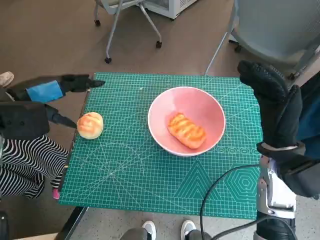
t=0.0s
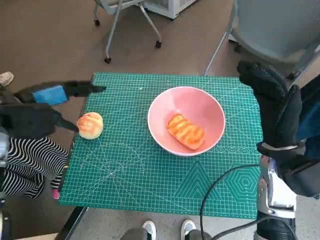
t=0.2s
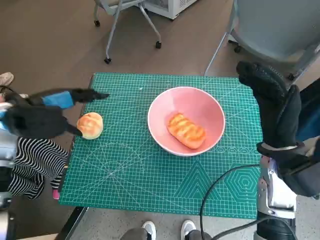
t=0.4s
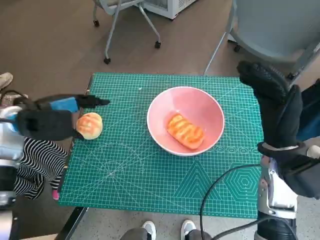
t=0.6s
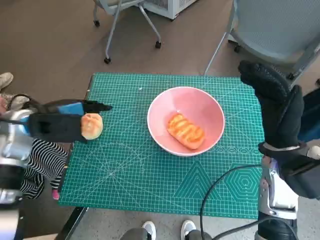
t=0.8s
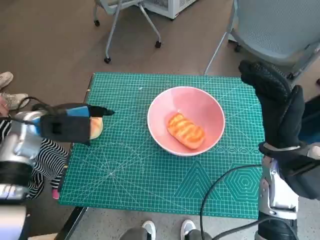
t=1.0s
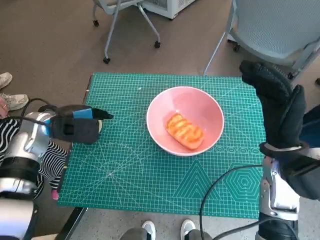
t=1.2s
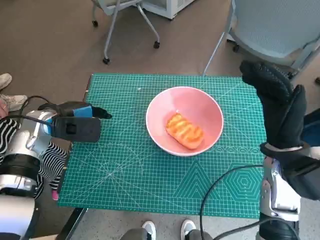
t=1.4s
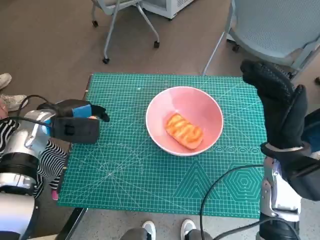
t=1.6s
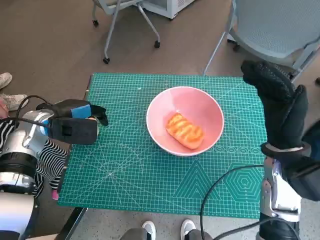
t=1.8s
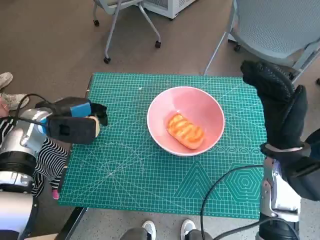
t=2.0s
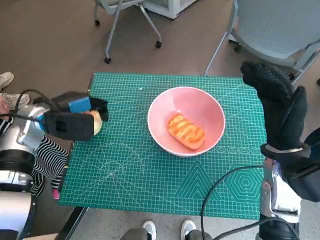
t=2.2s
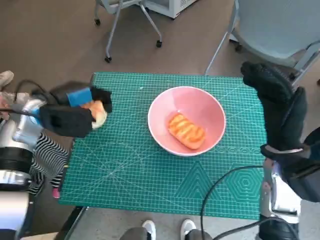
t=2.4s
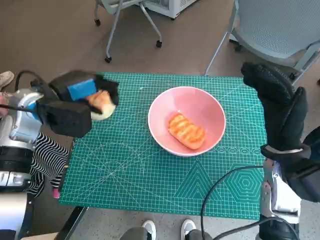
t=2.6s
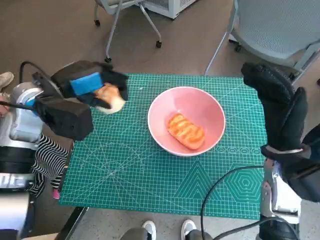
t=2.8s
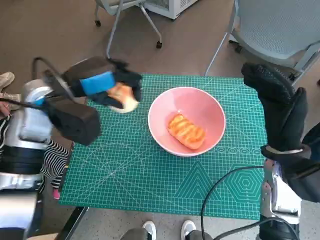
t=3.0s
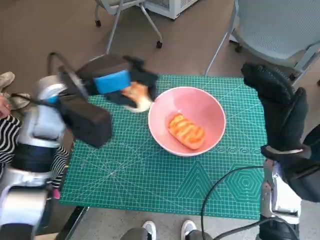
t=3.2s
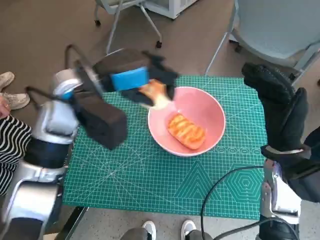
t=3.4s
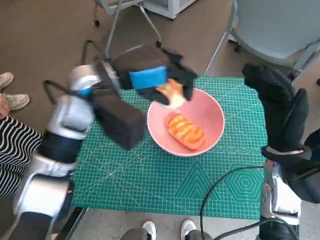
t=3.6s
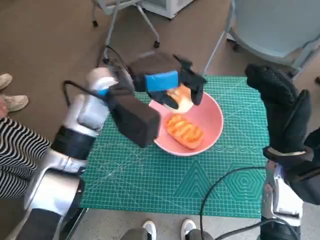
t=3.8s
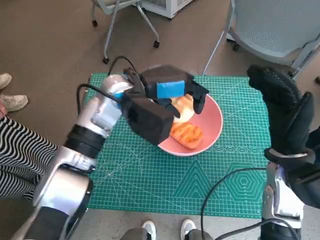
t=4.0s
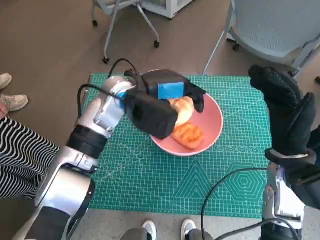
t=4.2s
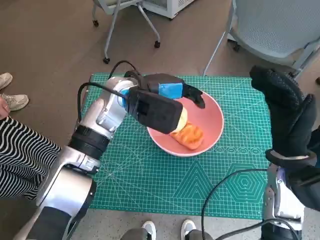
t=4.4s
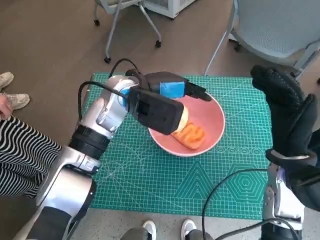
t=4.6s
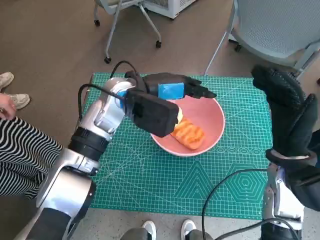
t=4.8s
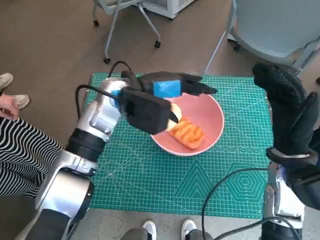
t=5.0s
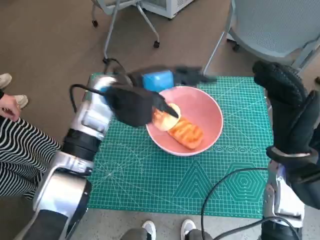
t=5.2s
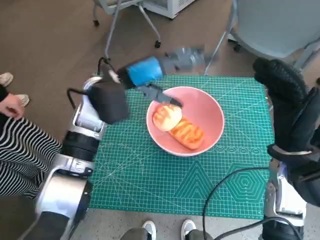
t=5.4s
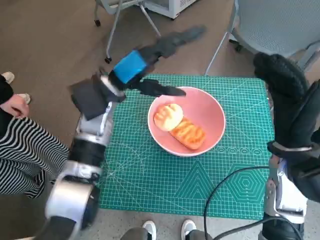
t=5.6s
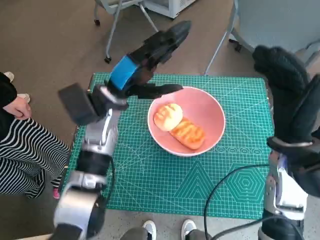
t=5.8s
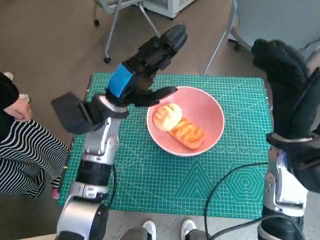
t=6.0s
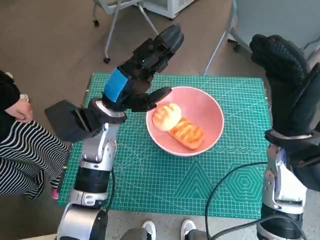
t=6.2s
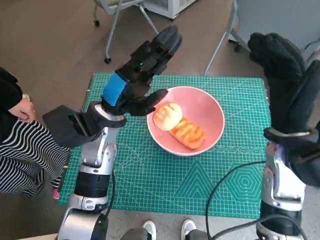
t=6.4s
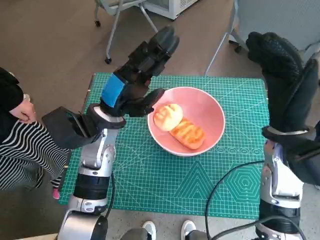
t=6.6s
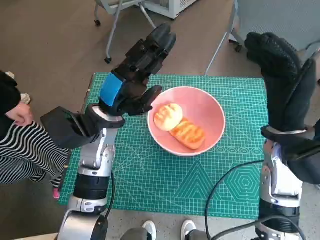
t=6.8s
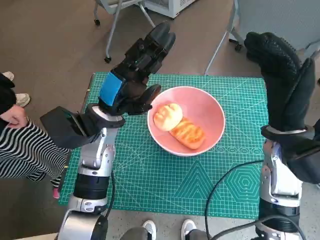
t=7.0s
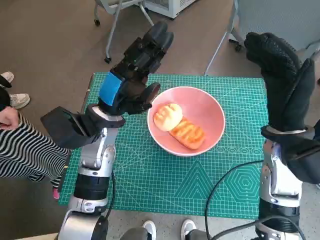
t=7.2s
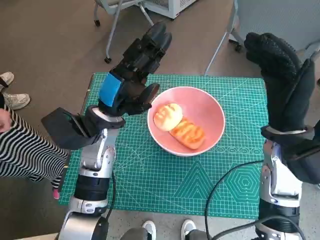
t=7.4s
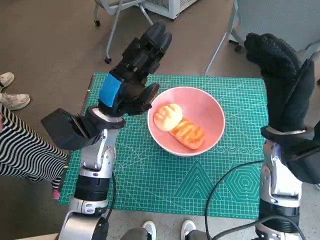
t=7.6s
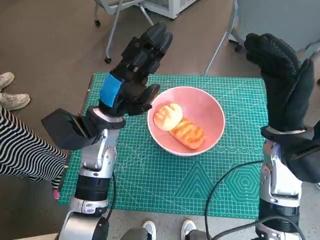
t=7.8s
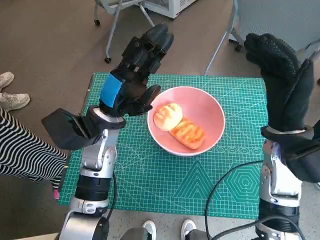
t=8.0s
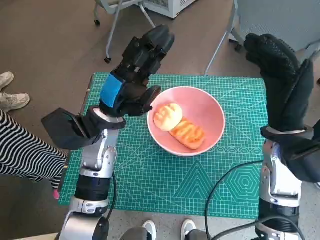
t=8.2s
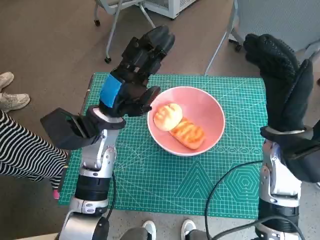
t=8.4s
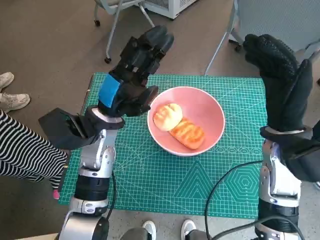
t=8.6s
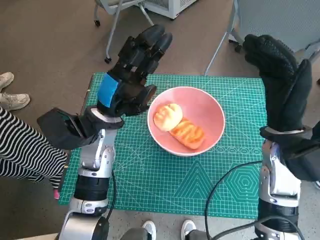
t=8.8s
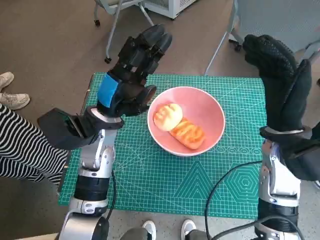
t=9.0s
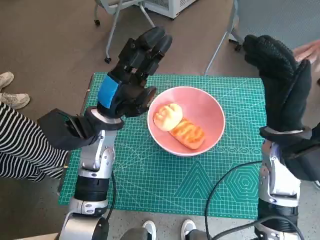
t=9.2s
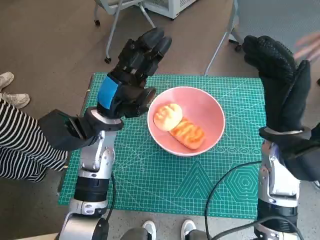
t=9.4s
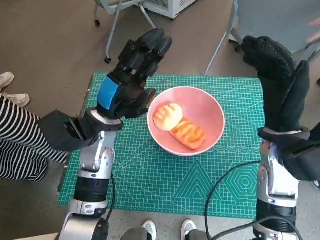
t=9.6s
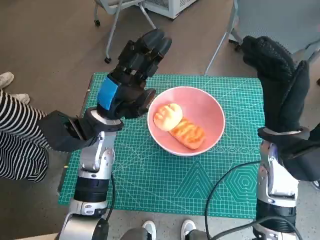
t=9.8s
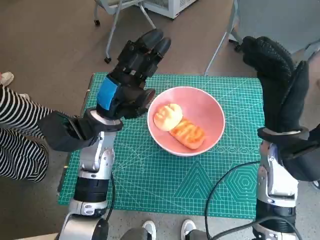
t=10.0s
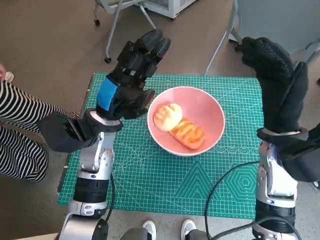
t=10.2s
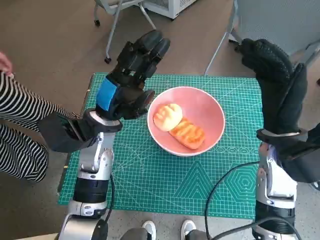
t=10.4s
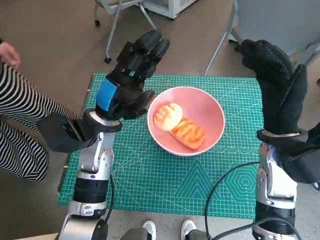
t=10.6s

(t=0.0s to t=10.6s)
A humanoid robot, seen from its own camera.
Task of the whole recording: Push the bowl into the center of the table and put the bread into the bowl.
Step, t=1.8s - t=5.0s: Place the round bread in pink bowl with left hand.
t=0.0s - t=1.6s: The left hand goes about 10 cm downward.
t=1.6s - t=3.0s: The left hand travels upward and to the right by some 10 cm.
t=3.0s - t=4.6s: The left hand moves to the right, about 10 cm.
t=4.6s - t=6.0s: The left hand ends up approximately 5 cm from where it was.
t=7.6s - t=10.6s: Both hands stay about where they are.

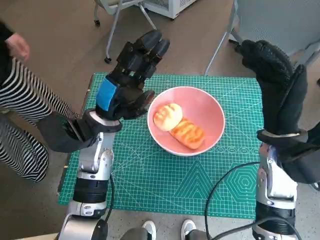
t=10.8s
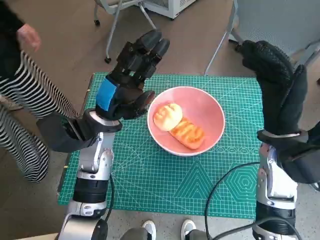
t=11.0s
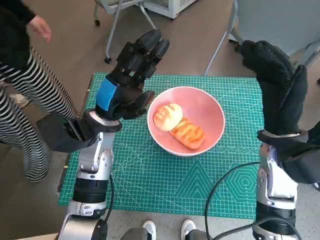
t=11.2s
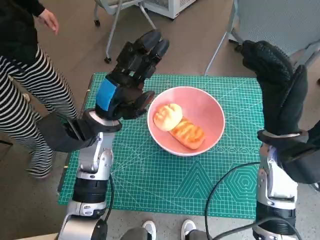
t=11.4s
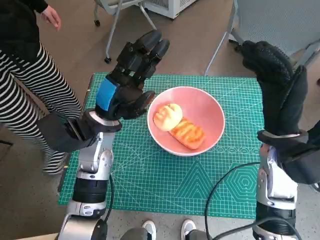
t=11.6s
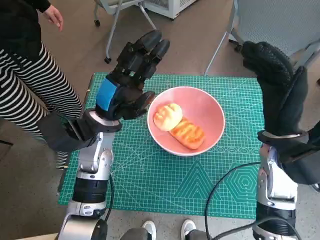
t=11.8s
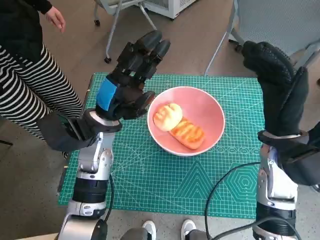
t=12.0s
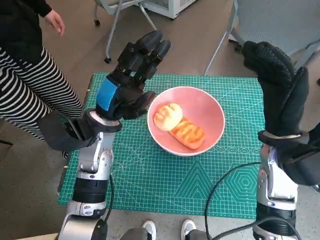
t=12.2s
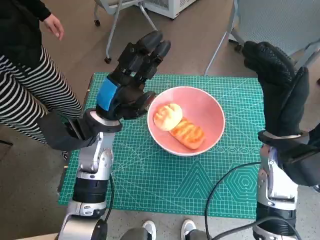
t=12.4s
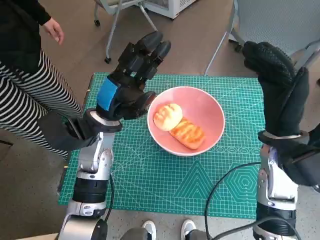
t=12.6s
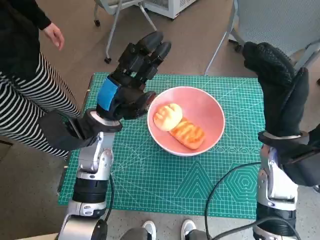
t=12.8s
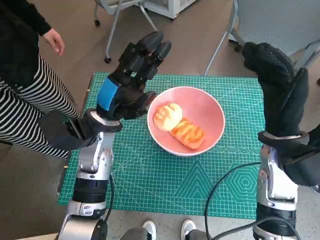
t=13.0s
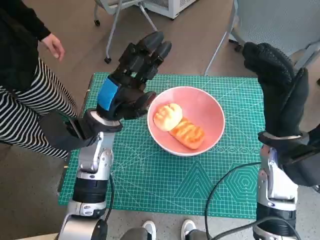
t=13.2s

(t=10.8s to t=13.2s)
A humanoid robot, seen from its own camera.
Task of the whole recording: Push the bowl into the center of the table and put the bread into the bowl.
t=10.8s - t=13.2s: The two hands keep their place.

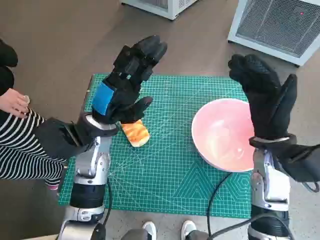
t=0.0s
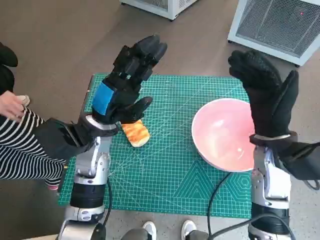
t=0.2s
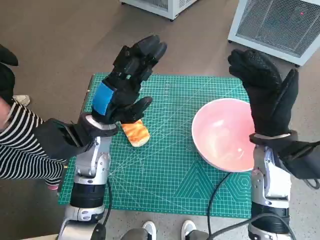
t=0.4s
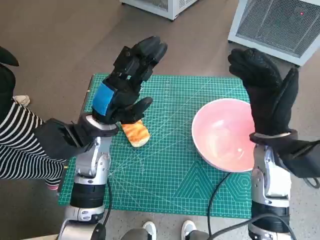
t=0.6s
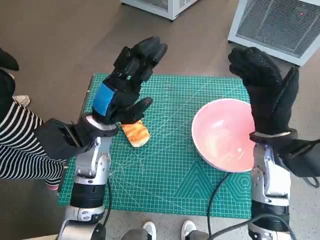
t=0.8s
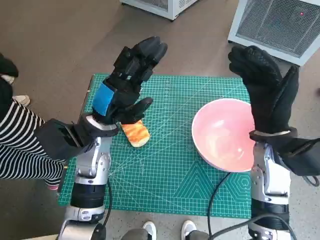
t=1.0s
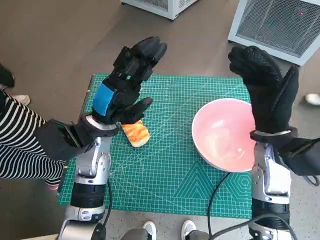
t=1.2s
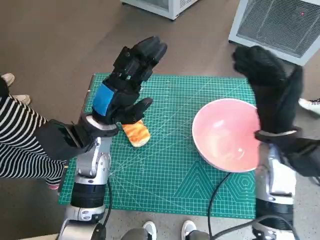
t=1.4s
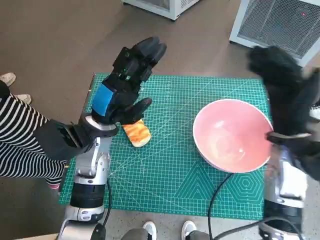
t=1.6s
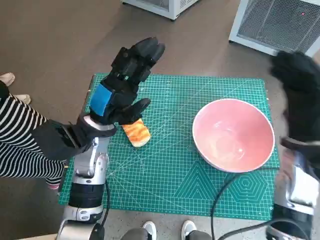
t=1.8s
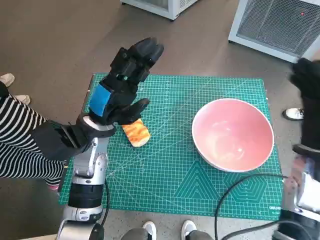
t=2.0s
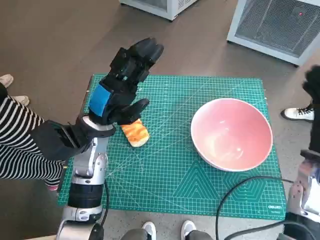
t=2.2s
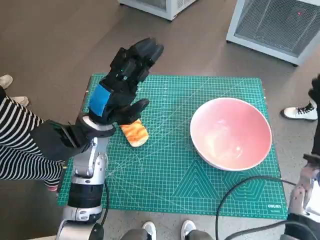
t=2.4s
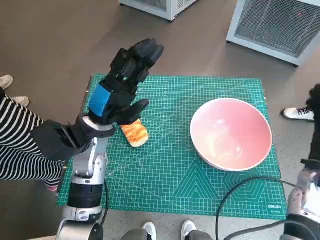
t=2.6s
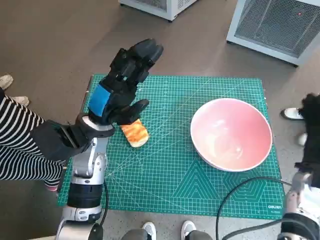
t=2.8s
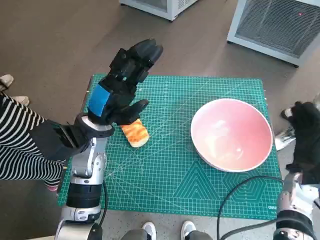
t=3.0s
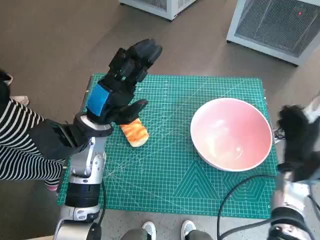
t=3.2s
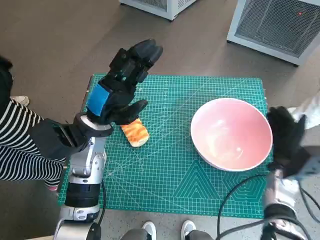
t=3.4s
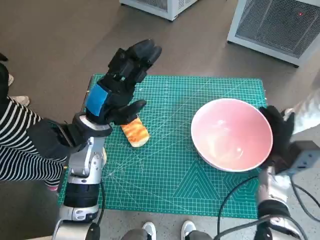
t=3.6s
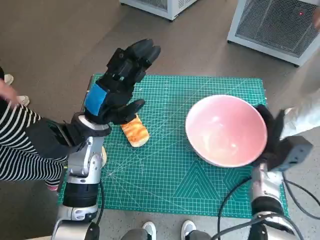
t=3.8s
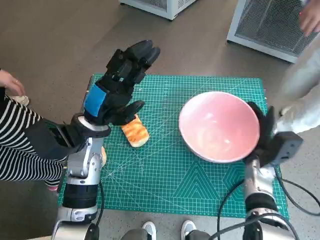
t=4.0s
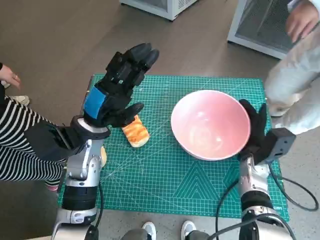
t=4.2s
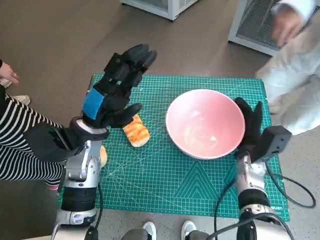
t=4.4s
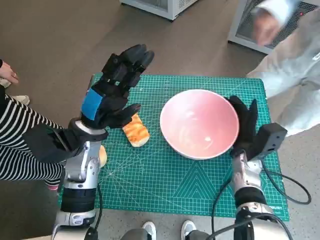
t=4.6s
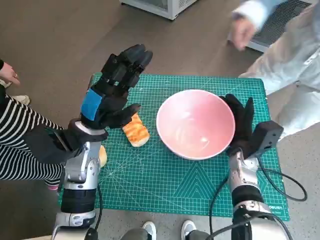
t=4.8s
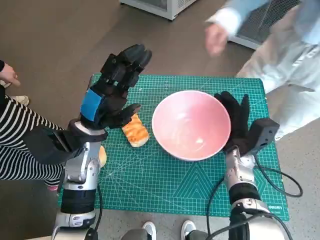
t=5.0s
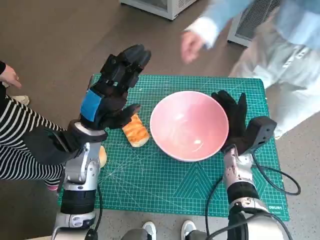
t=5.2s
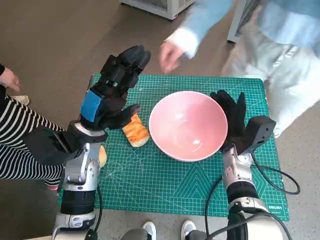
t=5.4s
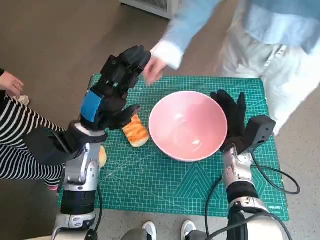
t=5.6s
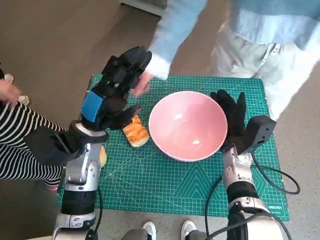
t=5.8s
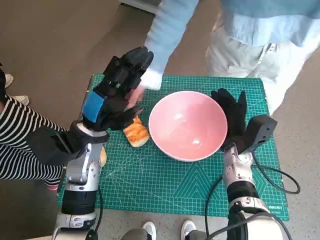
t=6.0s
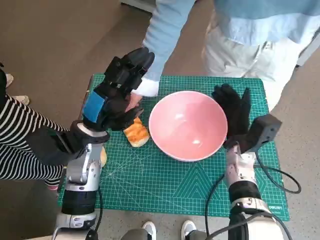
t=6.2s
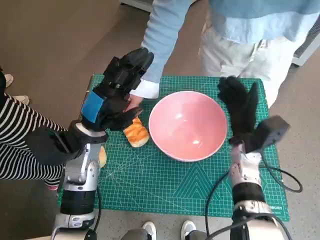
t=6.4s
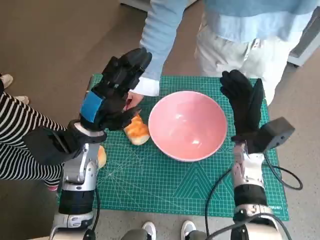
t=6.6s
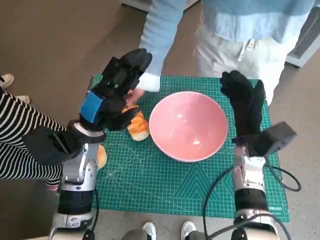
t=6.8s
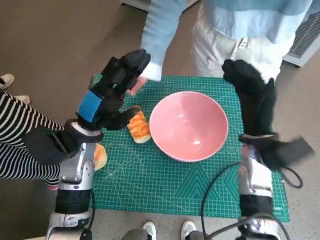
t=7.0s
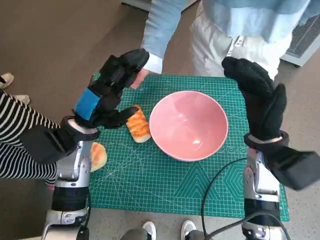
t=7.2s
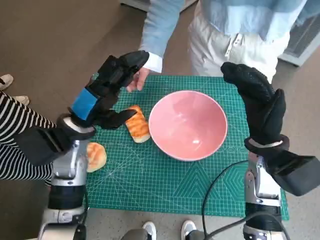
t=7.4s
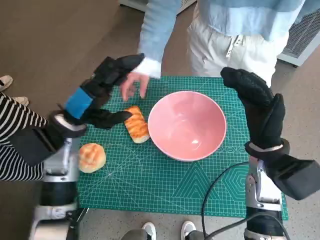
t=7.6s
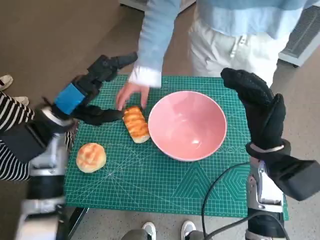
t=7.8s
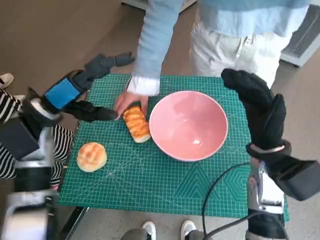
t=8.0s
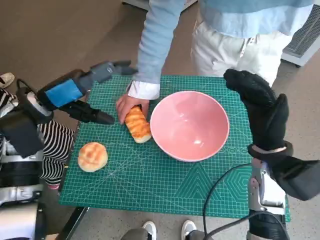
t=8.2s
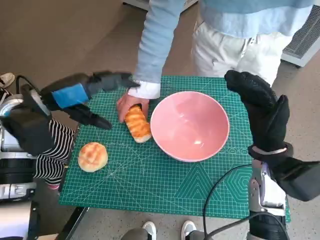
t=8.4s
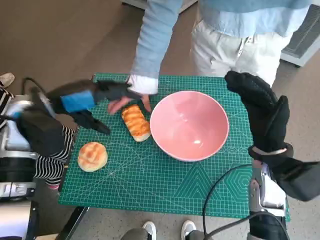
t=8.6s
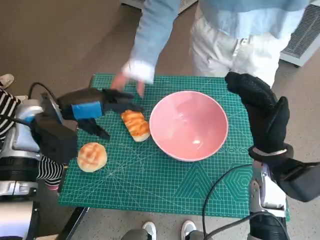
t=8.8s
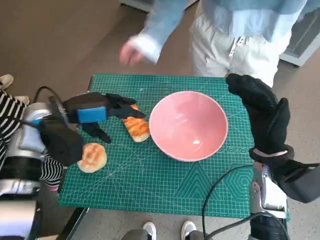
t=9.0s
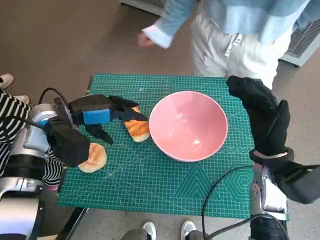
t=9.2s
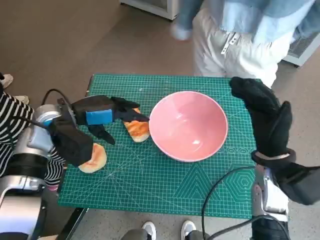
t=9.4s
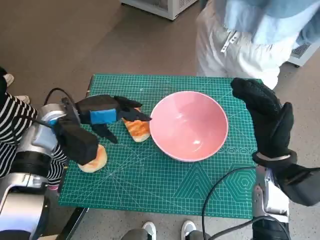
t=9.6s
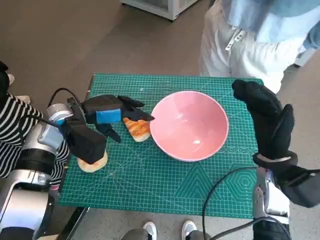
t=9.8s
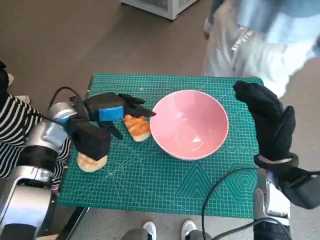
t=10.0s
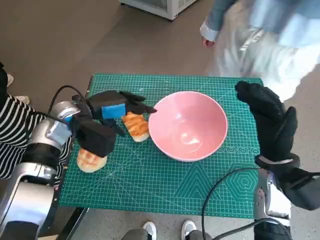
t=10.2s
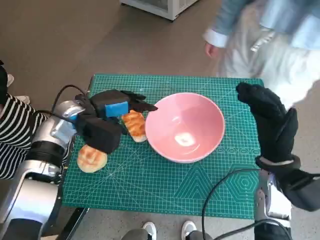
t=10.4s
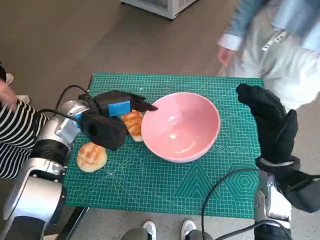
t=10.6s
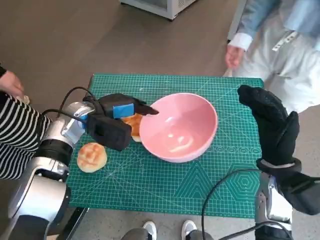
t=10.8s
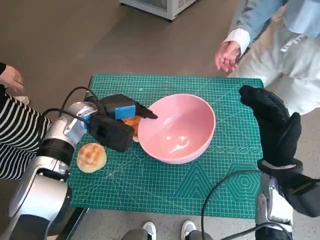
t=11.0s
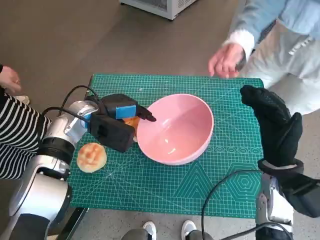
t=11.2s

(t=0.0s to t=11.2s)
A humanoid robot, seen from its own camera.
Task of the whole recording: Push the bowl into the center of the table and put the bread into the bowl.
Step, t=0.0s - t=6.4s: Move the pink bowl to the center of table with right hand.
t=1.6s - t=3.2s: The right hand travels downward and to the right by about 15 cm.
t=3.2s - t=4.8s: The right hand heads to the left, covering roughly 10 cm.
t=6.4s - t=8.0s: The left hand heads to the left, covering roughly 5 cm. The right hand shifts roughly 10 cm upward and backward.
t=9.6s - t=11.2s: The left hand moves roughly 5 cm.
